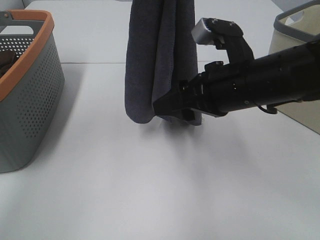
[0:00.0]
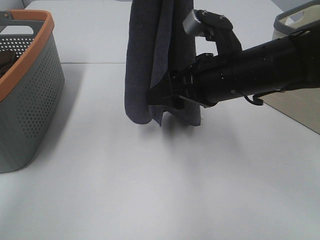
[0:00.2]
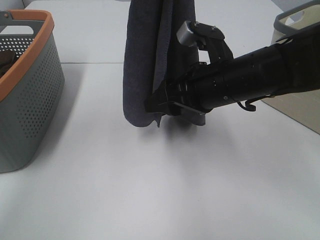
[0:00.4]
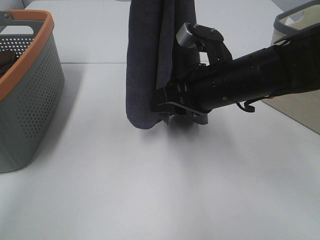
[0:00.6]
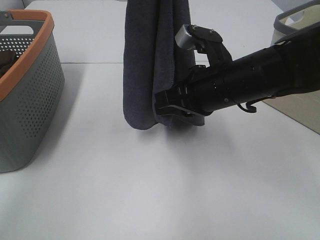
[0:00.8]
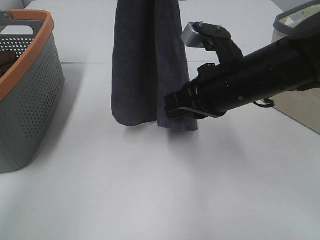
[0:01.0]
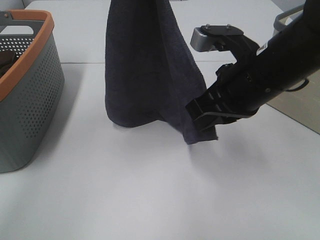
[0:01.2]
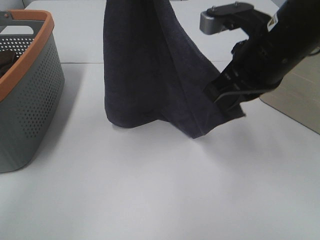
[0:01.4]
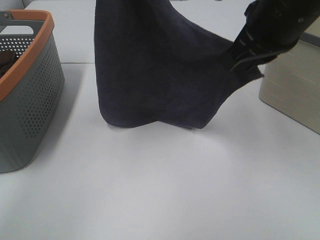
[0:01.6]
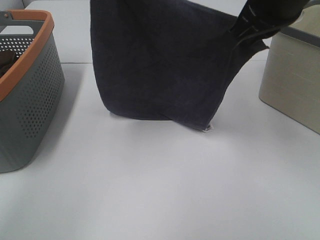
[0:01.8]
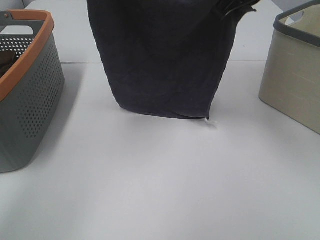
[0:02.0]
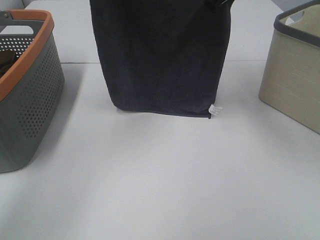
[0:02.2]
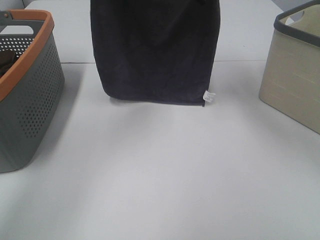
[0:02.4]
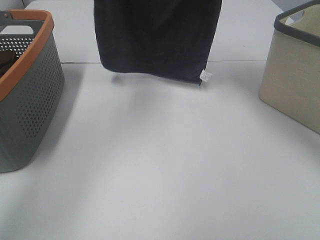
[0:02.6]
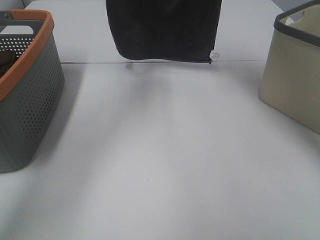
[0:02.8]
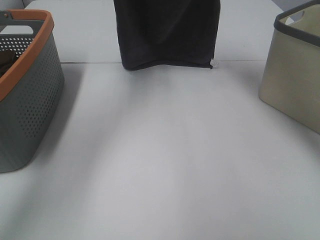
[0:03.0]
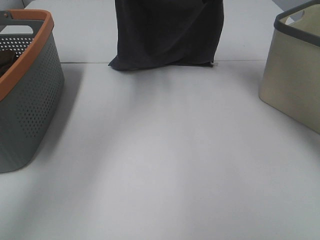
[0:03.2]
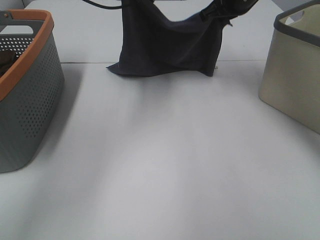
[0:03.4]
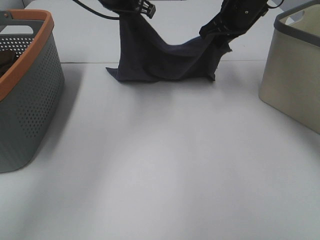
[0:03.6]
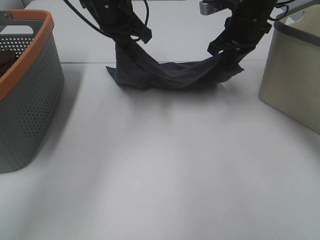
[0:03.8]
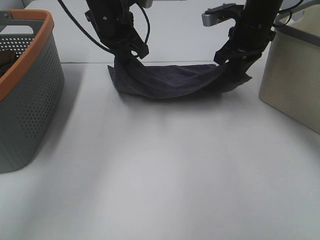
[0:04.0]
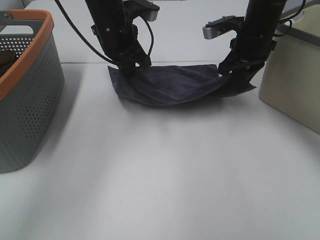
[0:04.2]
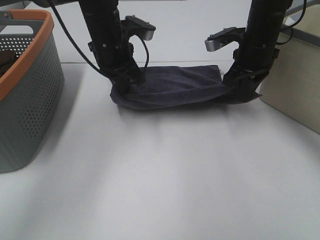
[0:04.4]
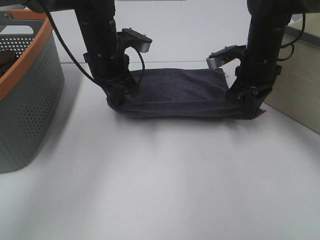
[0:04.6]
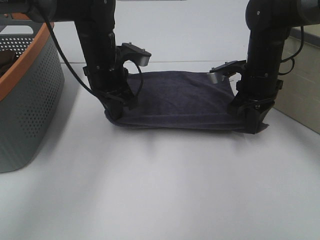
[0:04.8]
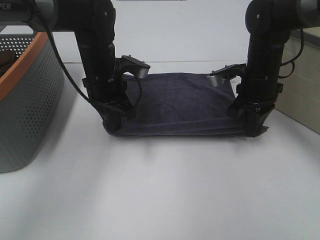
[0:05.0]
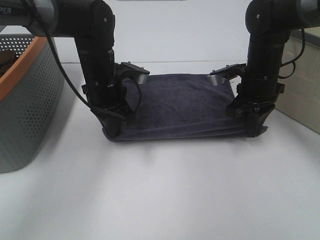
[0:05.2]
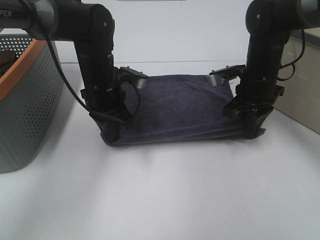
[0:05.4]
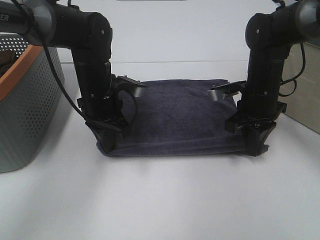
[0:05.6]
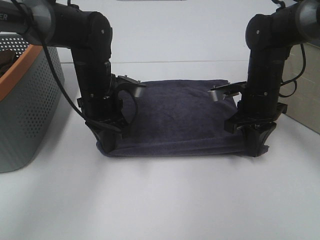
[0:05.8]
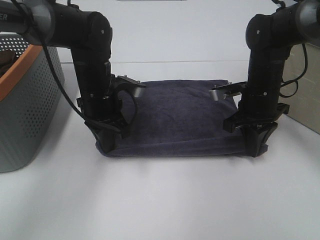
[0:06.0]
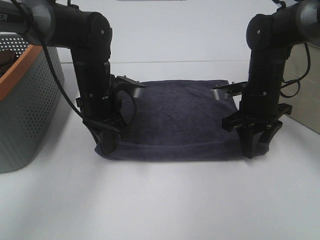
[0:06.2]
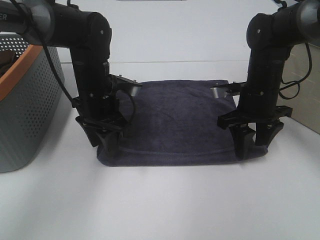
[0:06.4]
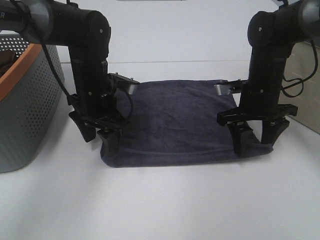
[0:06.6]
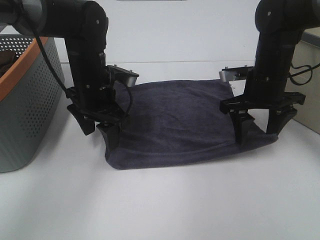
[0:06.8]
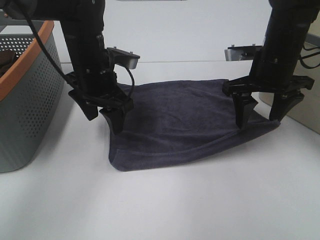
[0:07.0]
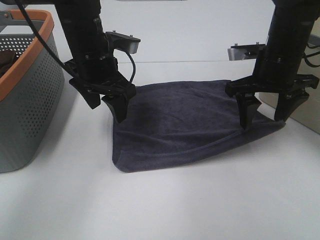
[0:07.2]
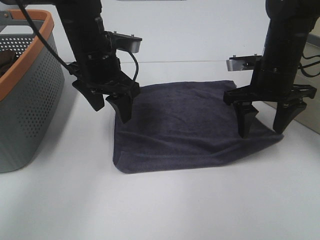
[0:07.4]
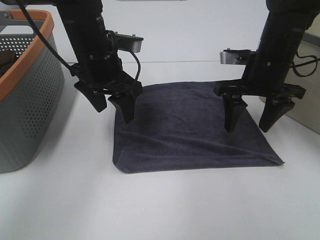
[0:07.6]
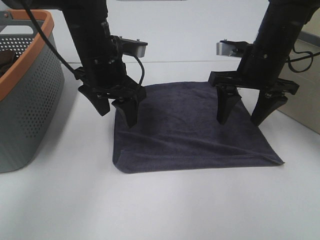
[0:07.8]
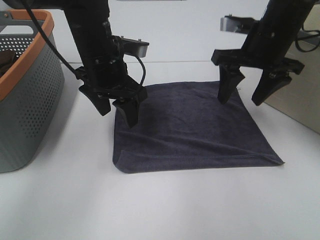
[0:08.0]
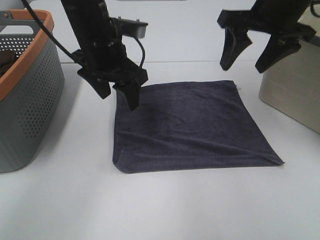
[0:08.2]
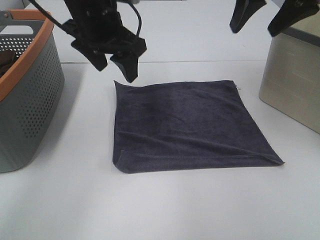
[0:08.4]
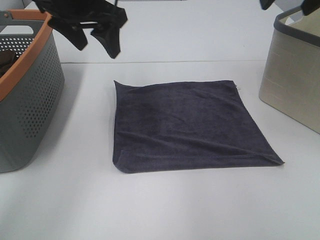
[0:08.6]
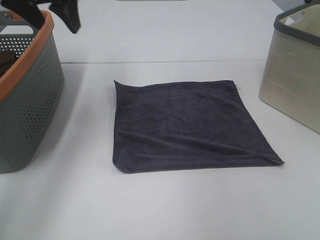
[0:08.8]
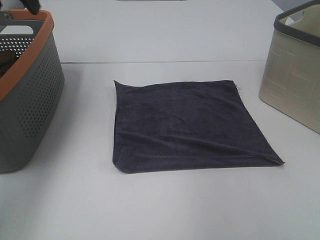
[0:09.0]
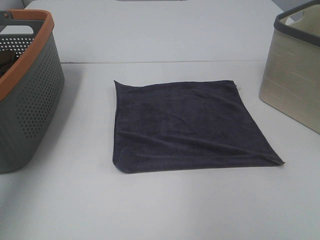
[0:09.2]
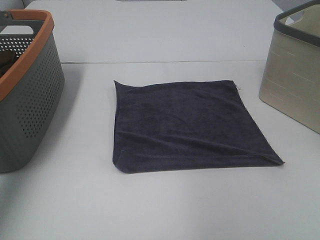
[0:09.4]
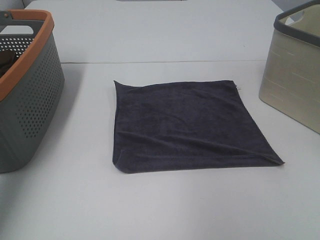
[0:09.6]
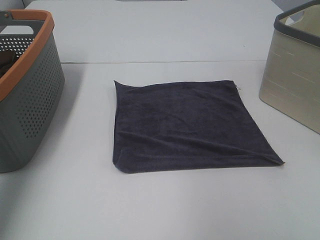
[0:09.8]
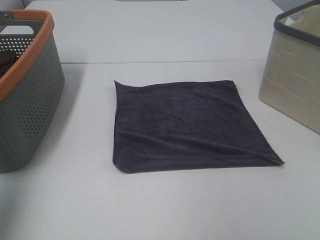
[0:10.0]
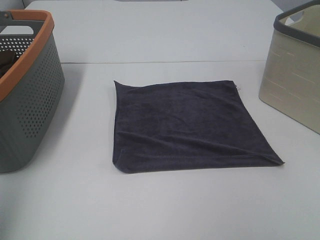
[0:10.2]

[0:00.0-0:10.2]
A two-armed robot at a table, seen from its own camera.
Task of the whole recording: Remove the towel and place it.
Step, 0:00.0 to 0:02.8: Left hand: spread the grey towel flat on the table.
Step, 0:00.0 to 0:03.6: Right hand: spread the grey towel flat on the table.
0:00.0 to 0:01.4: The right gripper goes roughly 5 cm upward, and closes its fingers.
0:01.4 to 0:03.0: The left gripper is displaced forward and downward by approximately 15 cm. Meanwhile the right gripper is displaced forward by roughly 25 cm.
0:03.0 to 0:04.4: Both grippers travel together downward and backward, approximately 15 cm.
0:04.4 to 0:05.8: The grippers both shift downward and backward by some 10 cm.
0:05.8 to 0:07.2: The grippers both shift upward by approximately 5 cm. The right gripper opens. Meanwhile the left gripper opens up.
0:07.2 to 0:08.8: The left gripper travels upward and to the left by some 15 cm, while the right gripper shifts about 20 cm upward and to the right.
0:08.8 to 0:10.2: The left gripper travels backward and to the left by about 30 cm.

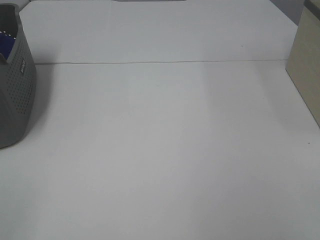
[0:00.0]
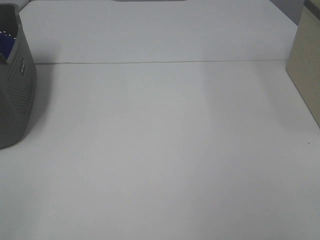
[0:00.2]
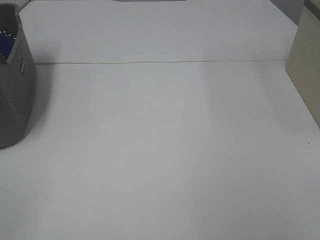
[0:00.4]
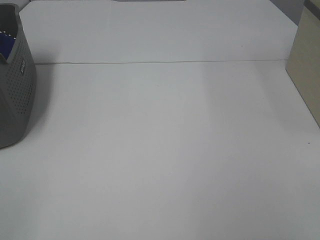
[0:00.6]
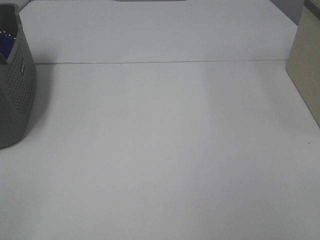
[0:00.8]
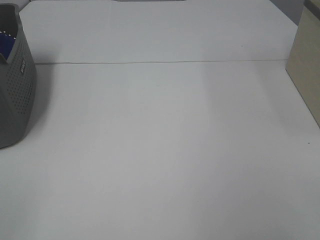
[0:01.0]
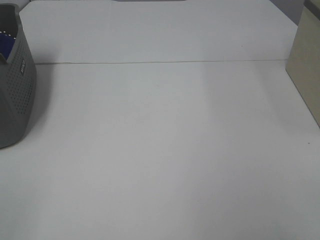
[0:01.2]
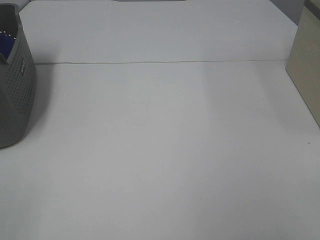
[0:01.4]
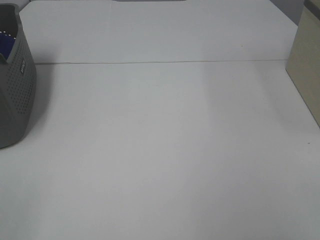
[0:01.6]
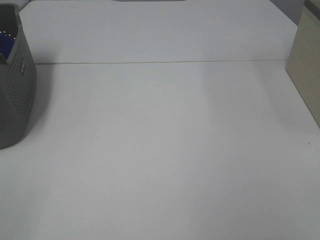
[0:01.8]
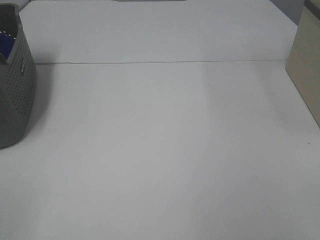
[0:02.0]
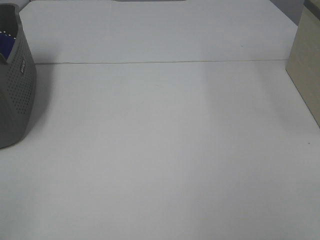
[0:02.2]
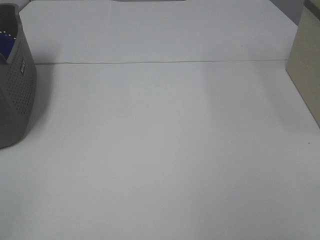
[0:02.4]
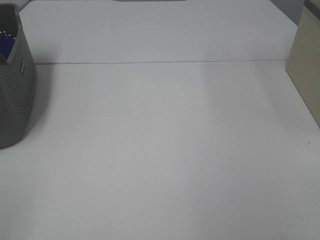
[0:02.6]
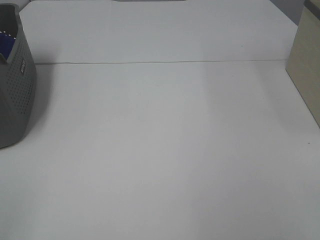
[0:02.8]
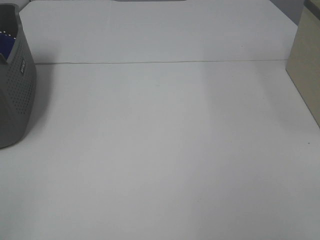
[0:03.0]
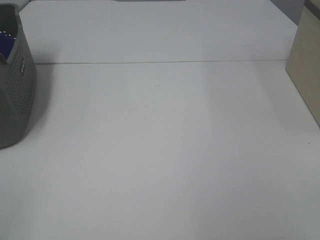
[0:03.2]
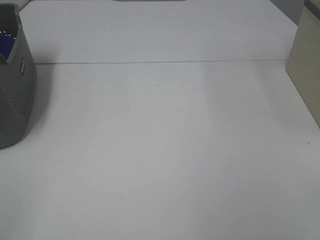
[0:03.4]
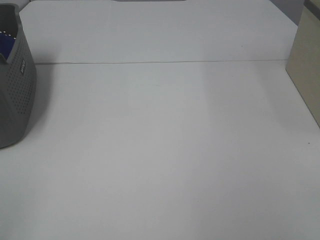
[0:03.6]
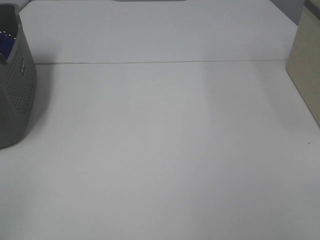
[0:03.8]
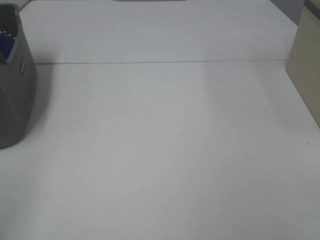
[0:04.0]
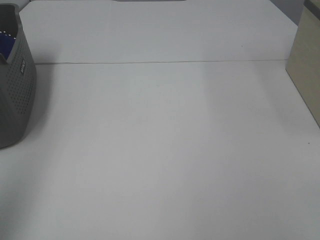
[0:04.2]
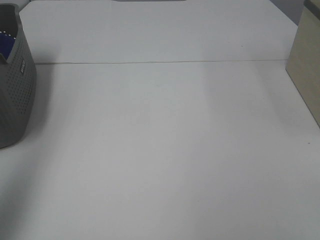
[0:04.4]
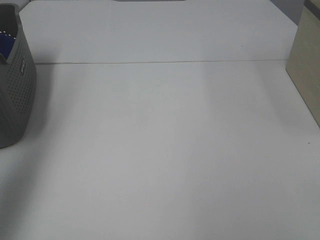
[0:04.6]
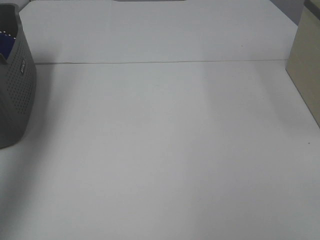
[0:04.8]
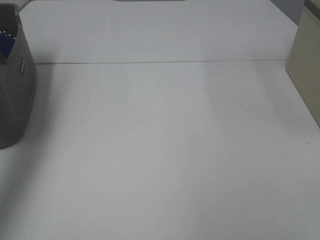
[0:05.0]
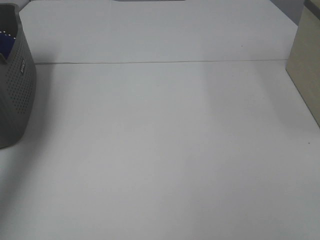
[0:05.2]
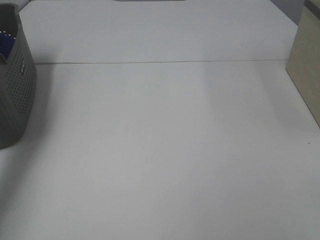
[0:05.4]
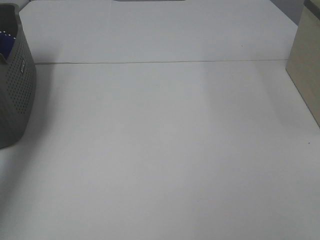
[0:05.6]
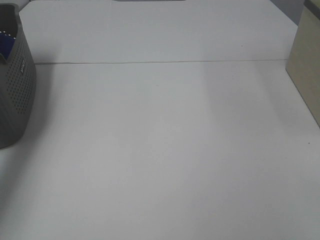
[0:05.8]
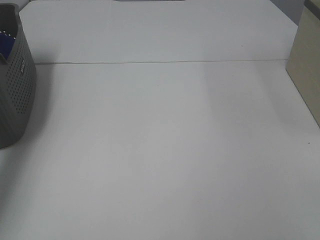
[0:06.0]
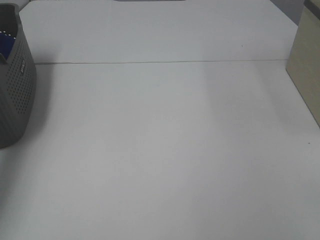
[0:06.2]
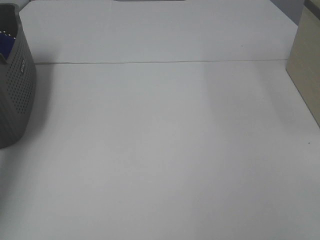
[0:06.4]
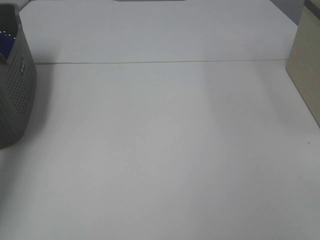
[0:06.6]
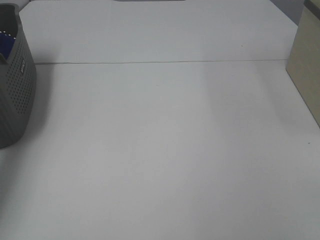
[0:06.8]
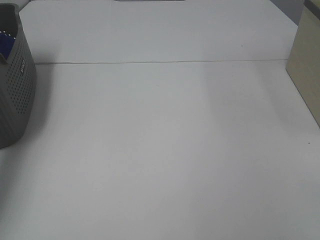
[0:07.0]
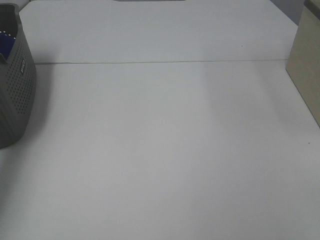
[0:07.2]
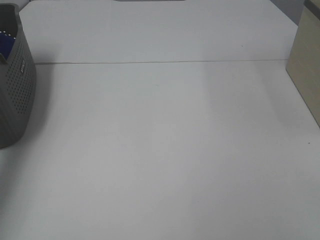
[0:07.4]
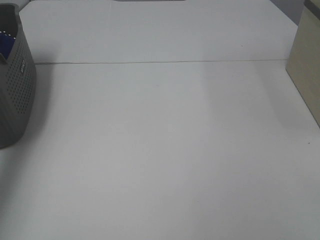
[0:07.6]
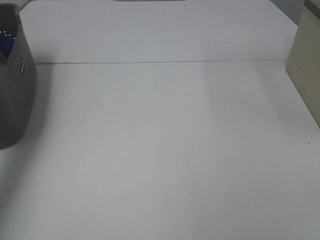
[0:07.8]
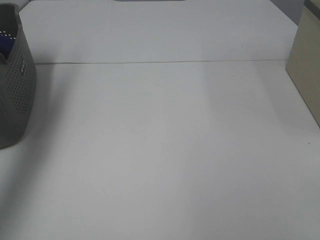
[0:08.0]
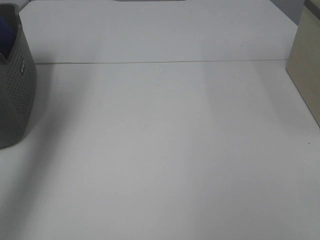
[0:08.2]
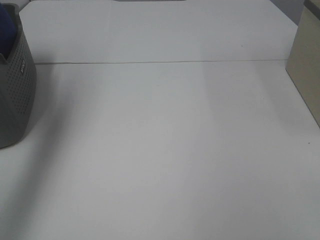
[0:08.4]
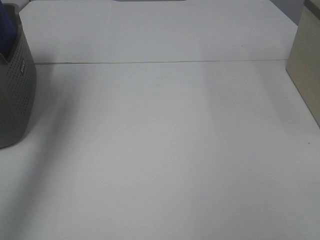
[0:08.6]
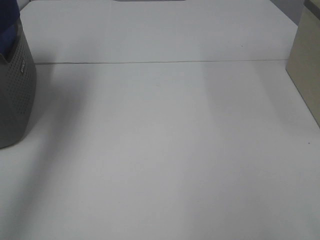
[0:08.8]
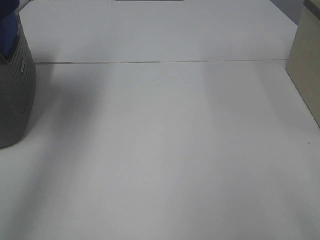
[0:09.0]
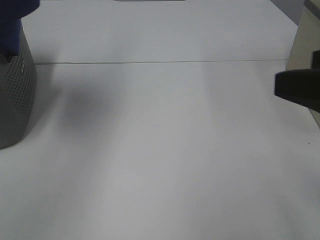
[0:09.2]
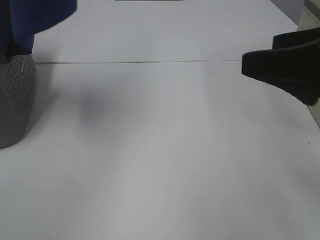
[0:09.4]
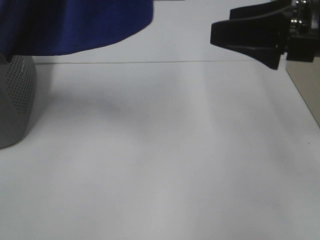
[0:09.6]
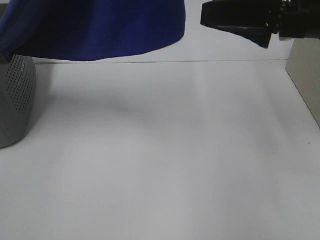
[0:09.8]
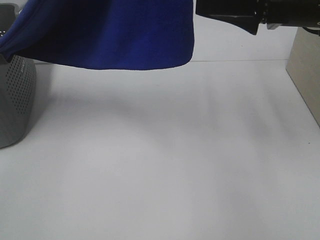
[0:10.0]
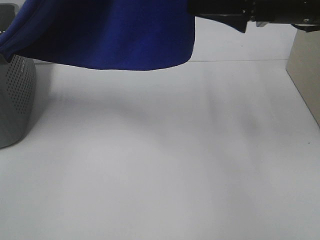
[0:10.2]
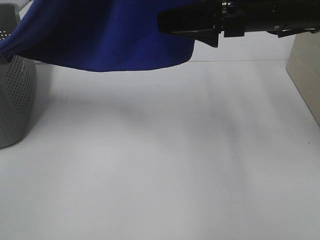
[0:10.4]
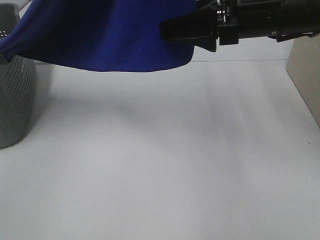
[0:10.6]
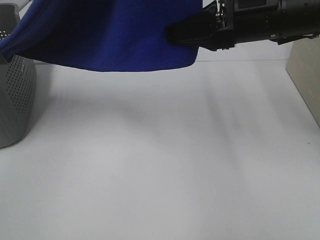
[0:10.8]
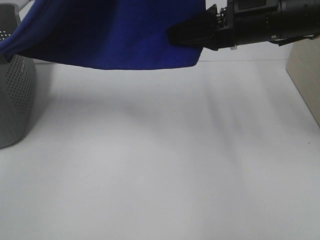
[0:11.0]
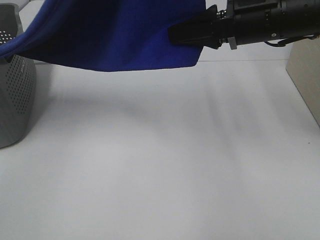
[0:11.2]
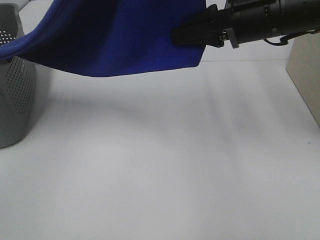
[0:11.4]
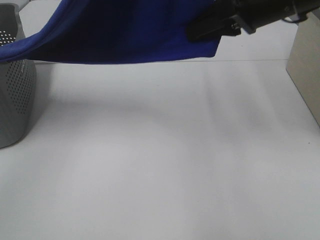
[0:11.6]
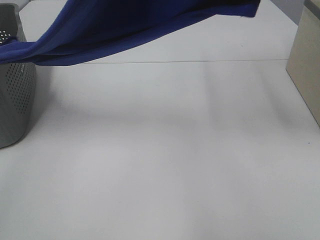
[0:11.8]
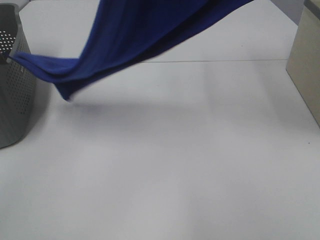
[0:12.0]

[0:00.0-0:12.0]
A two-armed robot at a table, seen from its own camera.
Task of the whole recording: Remove the towel and place it.
Step, 0:08.4 to 0:11.0: Right hand: grab a corner of the blue towel and straighten it.
0:00.0 to 0:03.0: The two grippers keep their place.
0:03.0 to 0:04.4: The left gripper moves forward and upward, some 20 cm.
0:04.4 to 0:06.0: The left gripper goes about 35 cm forward and downward.
0:07.6 to 0:09.0: The left gripper is displaced upward and to the right by some 25 cm.
0:09.0 to 0:10.4: The right gripper heads forward and to the left, covering roughly 25 cm, while the left gripper shifts approximately 20 cm to the right.
0:10.4 to 0:12.0: The left gripper changes place by approximately 5 cm; the right gripper moves upward, roughly 15 cm, and closes its fingers.
